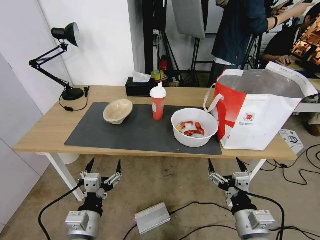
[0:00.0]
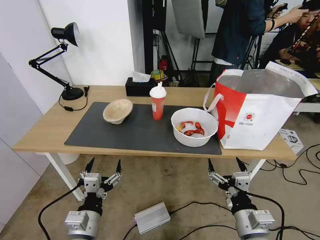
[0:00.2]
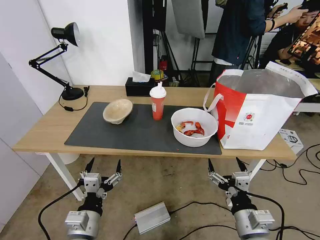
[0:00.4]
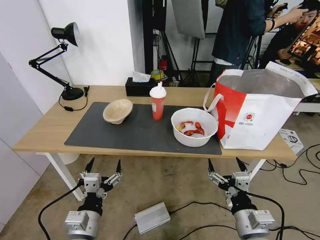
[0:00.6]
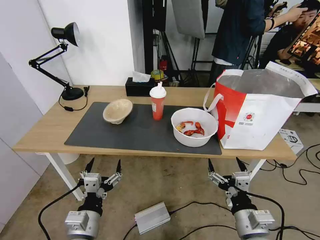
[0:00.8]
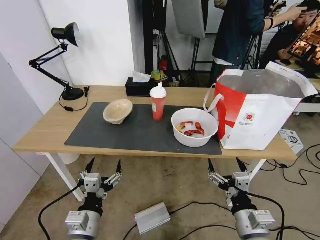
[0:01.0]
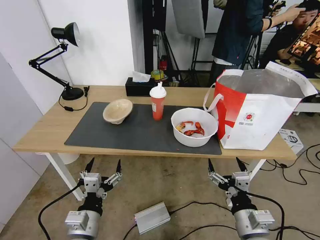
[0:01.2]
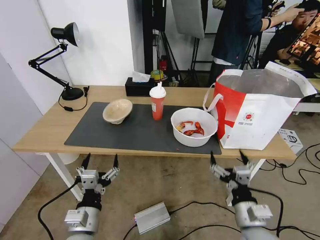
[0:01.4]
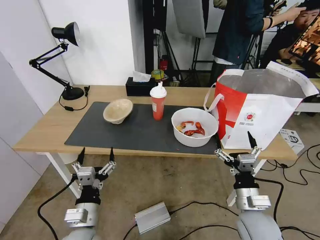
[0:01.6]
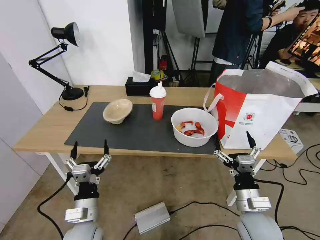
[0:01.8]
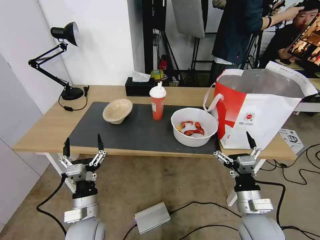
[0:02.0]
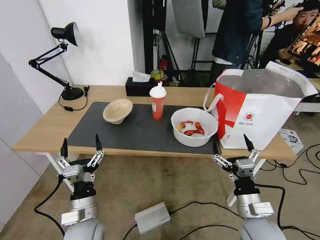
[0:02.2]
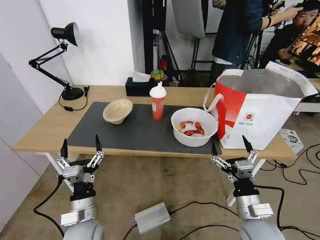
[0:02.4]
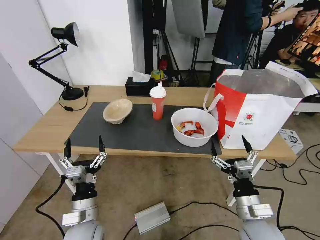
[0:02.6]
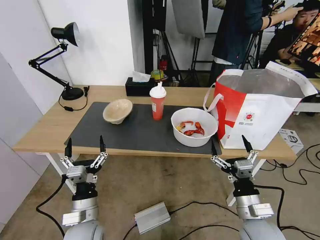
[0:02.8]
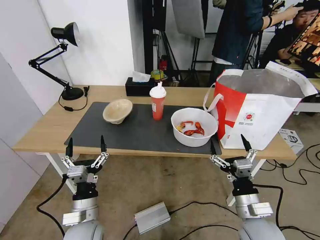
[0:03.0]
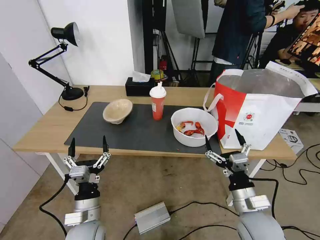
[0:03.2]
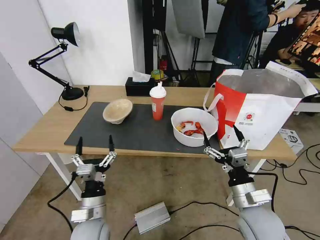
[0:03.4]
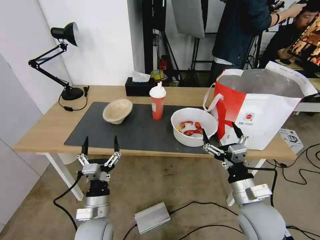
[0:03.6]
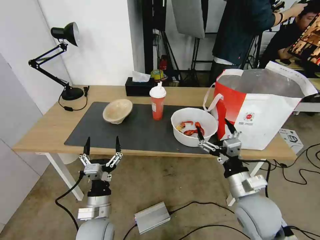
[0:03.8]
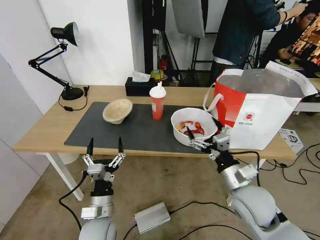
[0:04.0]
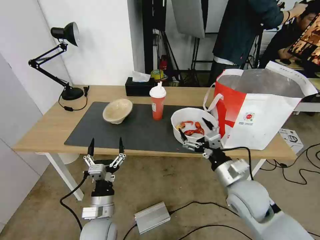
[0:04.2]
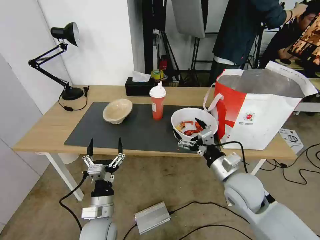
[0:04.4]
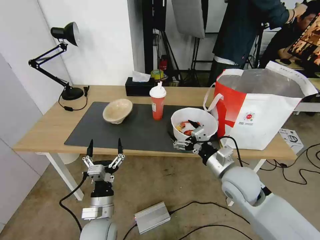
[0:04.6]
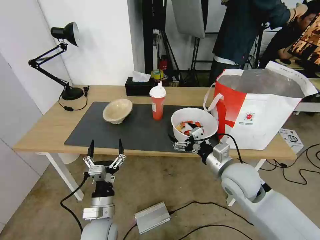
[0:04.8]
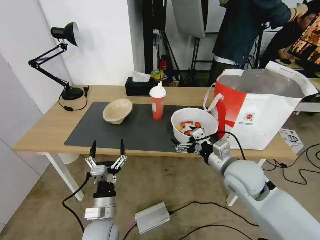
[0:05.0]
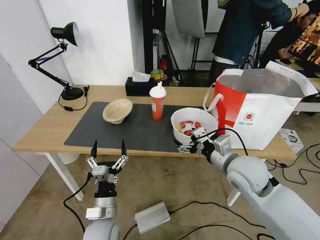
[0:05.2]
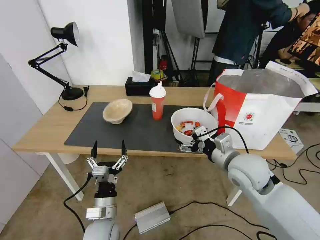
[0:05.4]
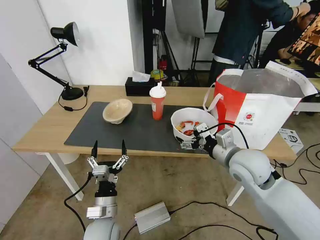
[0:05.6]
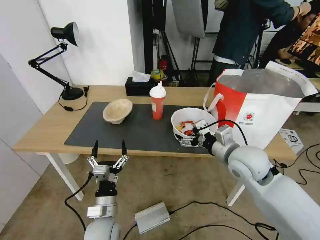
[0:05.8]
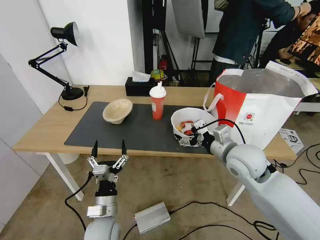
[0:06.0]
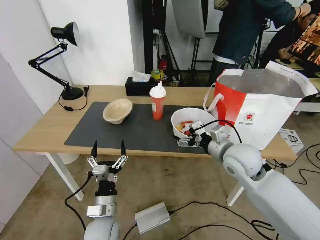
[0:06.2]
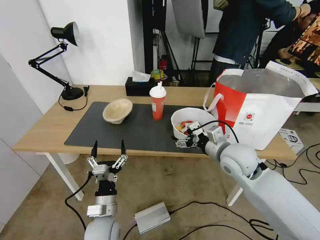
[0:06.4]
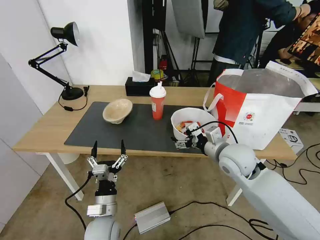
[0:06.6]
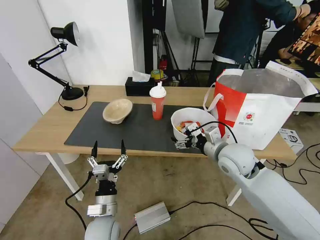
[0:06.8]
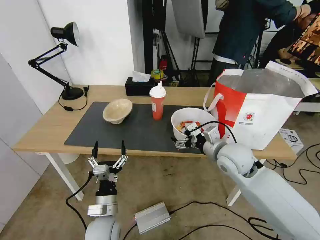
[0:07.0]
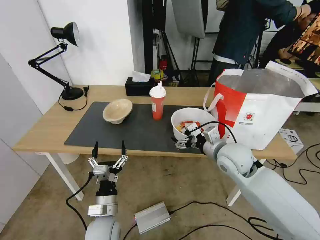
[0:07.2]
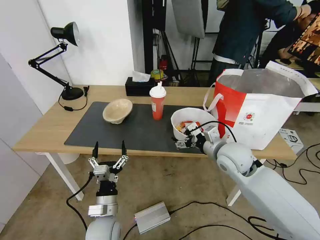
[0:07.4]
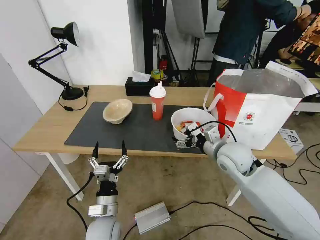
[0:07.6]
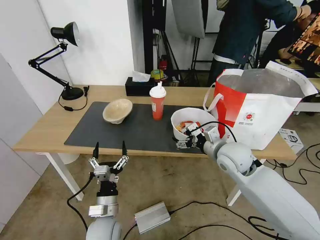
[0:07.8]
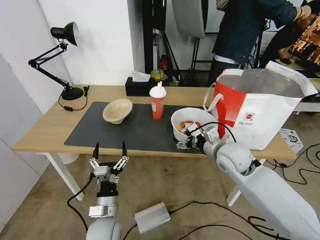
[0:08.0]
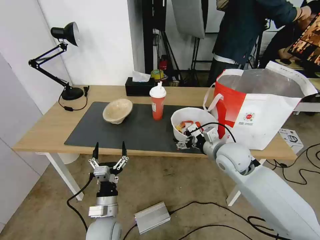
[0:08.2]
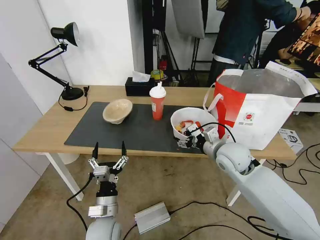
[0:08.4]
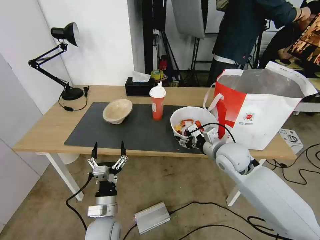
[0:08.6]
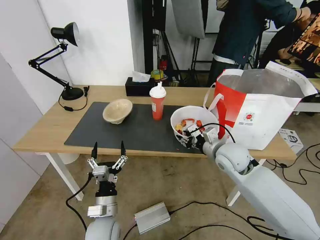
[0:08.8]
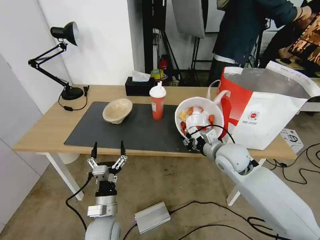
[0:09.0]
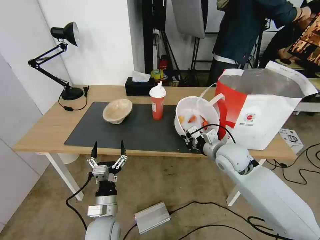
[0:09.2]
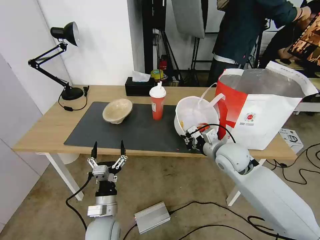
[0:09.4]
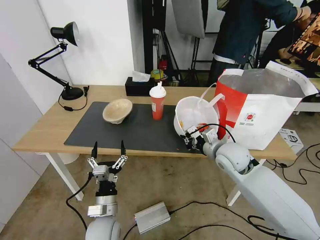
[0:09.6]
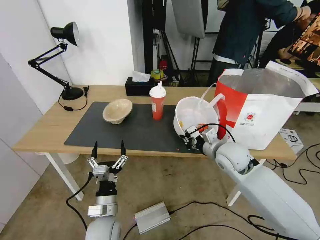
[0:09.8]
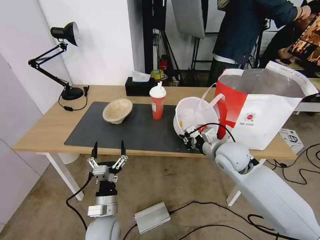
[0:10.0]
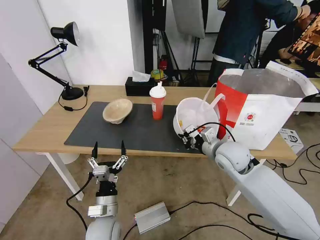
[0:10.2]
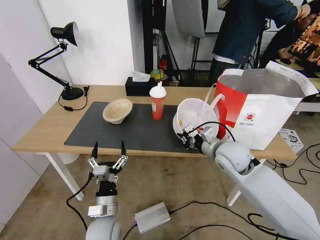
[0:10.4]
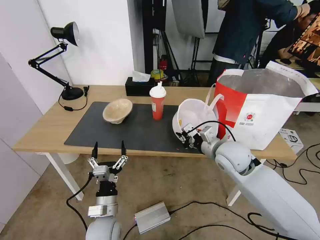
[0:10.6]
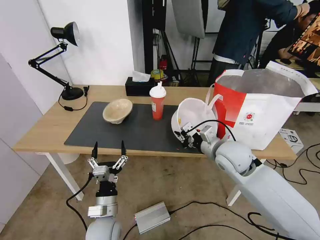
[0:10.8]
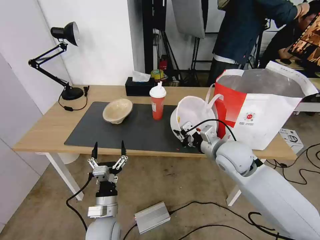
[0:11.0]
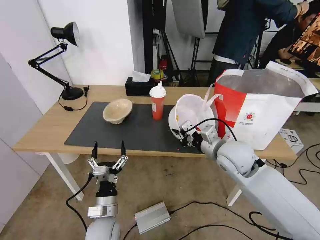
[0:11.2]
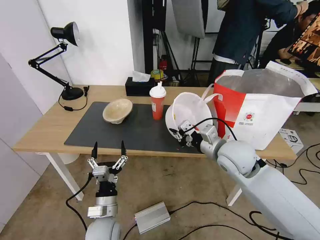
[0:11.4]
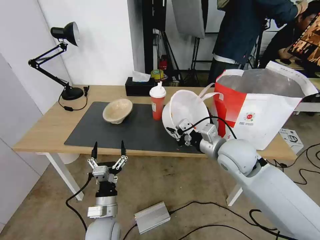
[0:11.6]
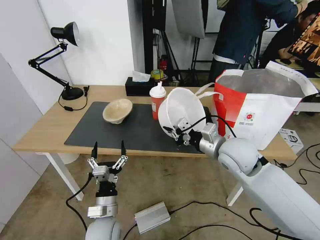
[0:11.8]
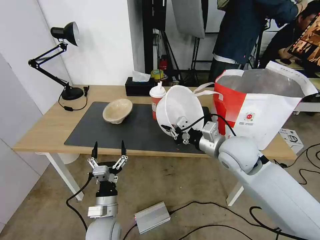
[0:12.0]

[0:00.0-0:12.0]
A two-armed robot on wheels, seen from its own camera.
Task of the whole recording: Pick up the trash from the table and place it into the takeout bag.
0:01.6 to 0:03.0: The grippers move only a little.
0:03.0 to 0:04.4: The right gripper shifts about 10 cm forward and upward.
0:04.4 to 0:06.0: The right gripper travels upward and forward by some 10 cm.
0:06.0 to 0:07.6: The grippers move only a little.
0:07.6 to 0:09.0: The right gripper closes.
0:09.0 to 0:10.4: The grippers stay close to where they were, moving slightly.
0:10.4 to 0:12.0: The right gripper ends up approximately 5 cm from where it was.

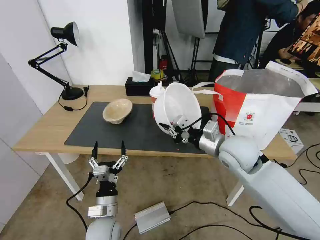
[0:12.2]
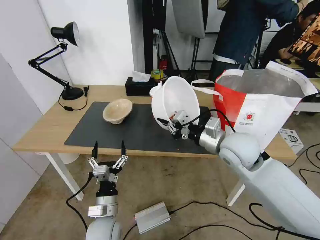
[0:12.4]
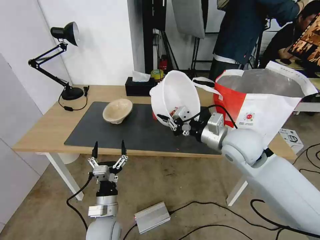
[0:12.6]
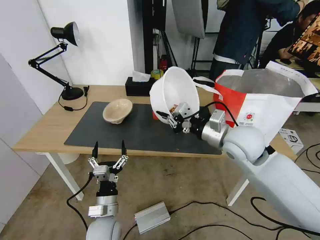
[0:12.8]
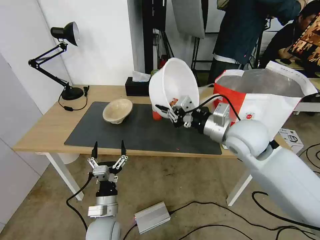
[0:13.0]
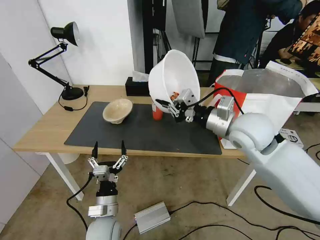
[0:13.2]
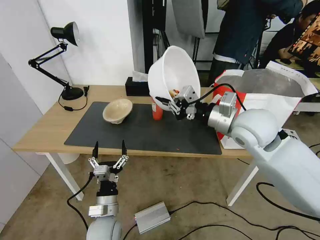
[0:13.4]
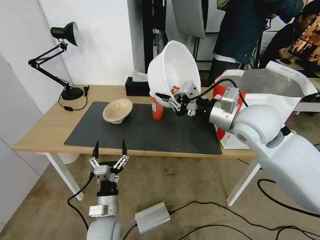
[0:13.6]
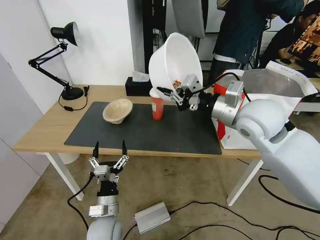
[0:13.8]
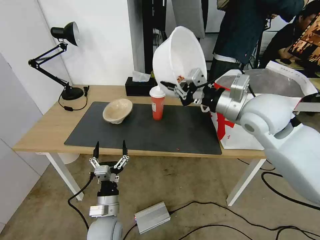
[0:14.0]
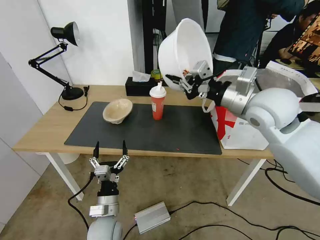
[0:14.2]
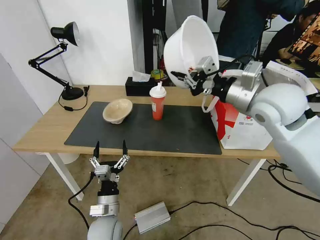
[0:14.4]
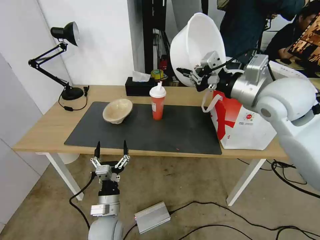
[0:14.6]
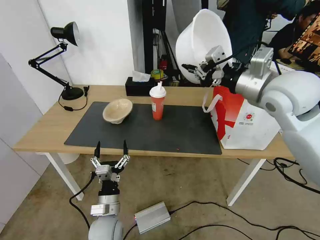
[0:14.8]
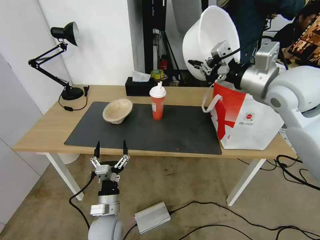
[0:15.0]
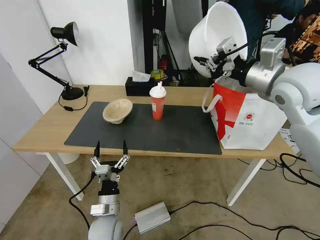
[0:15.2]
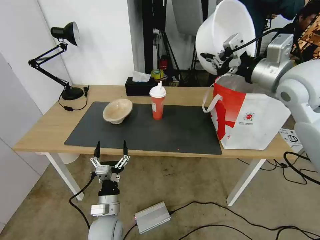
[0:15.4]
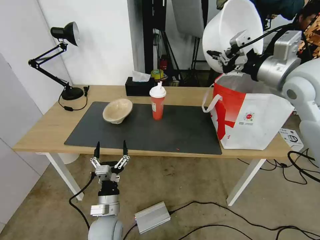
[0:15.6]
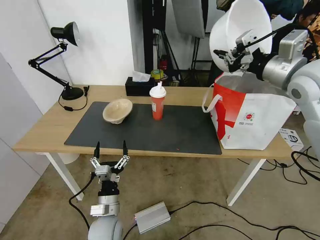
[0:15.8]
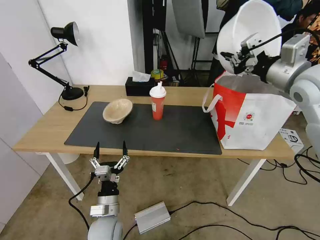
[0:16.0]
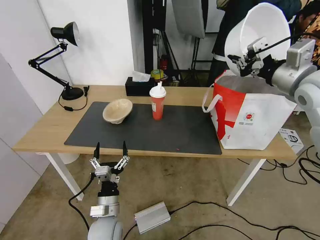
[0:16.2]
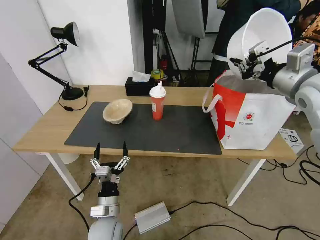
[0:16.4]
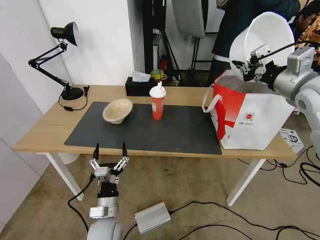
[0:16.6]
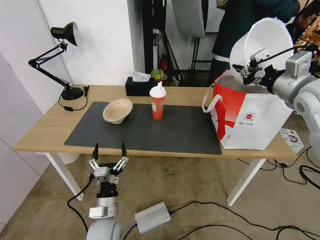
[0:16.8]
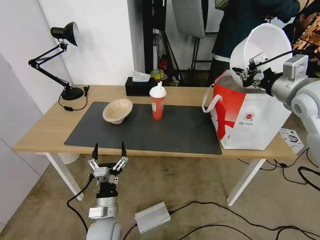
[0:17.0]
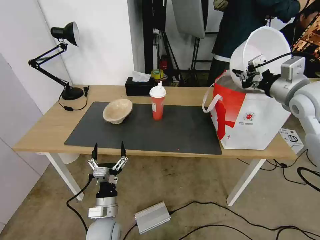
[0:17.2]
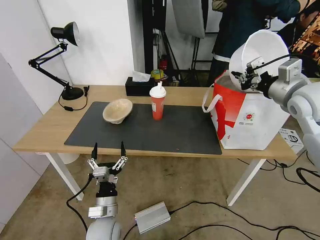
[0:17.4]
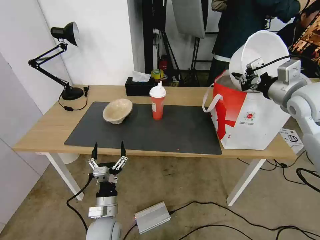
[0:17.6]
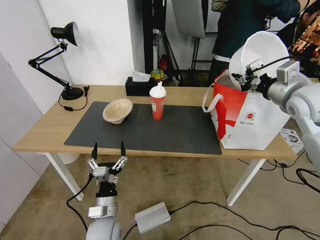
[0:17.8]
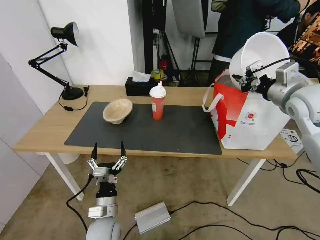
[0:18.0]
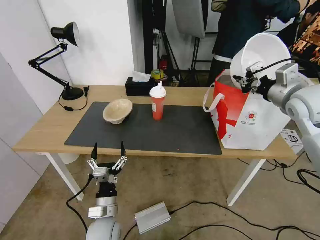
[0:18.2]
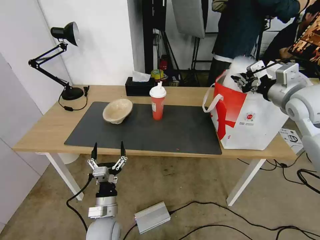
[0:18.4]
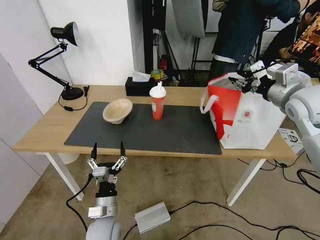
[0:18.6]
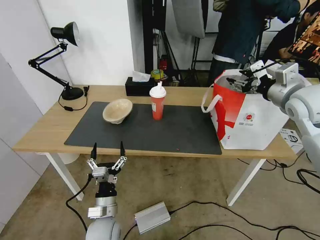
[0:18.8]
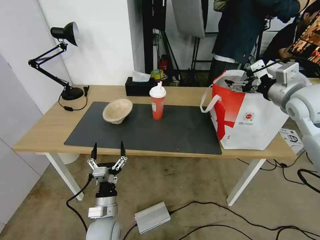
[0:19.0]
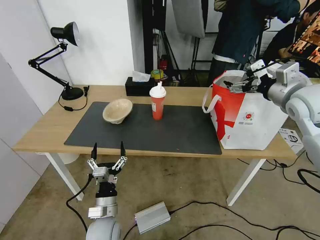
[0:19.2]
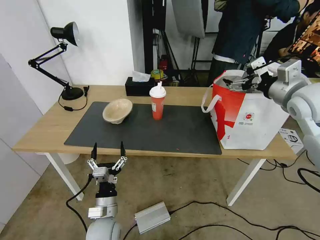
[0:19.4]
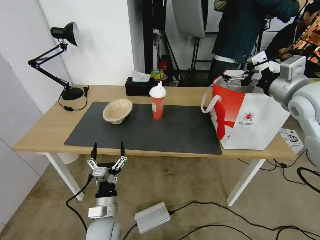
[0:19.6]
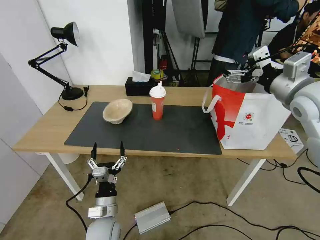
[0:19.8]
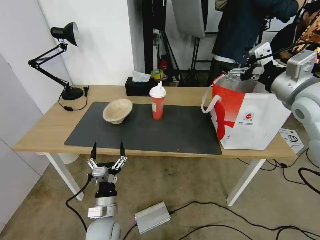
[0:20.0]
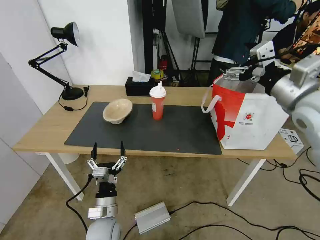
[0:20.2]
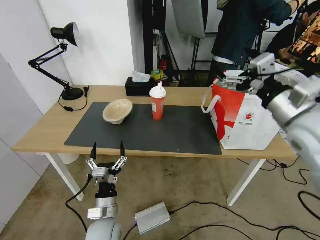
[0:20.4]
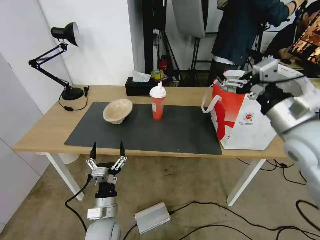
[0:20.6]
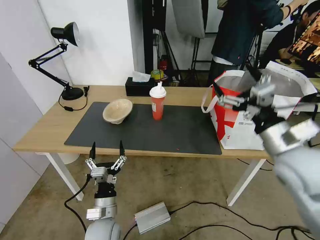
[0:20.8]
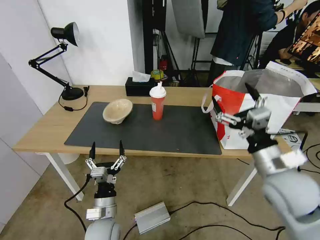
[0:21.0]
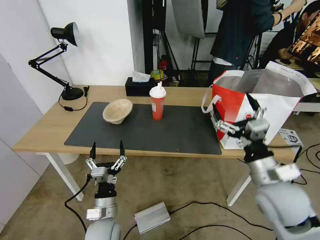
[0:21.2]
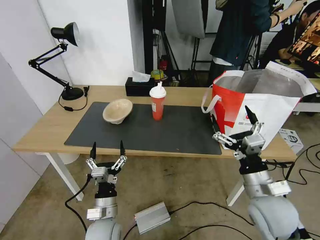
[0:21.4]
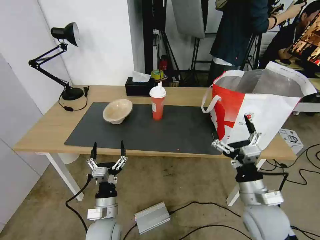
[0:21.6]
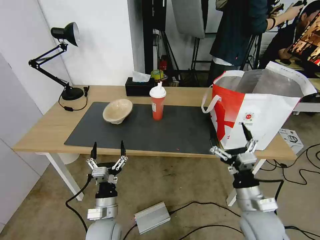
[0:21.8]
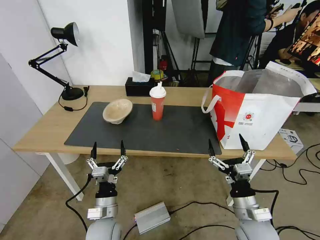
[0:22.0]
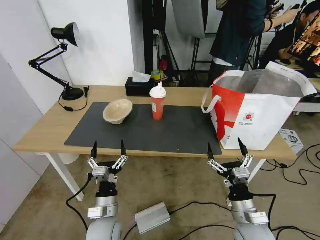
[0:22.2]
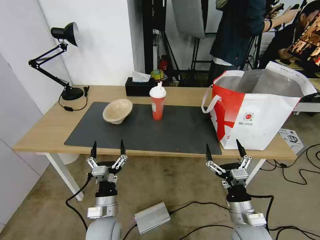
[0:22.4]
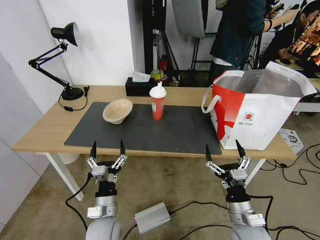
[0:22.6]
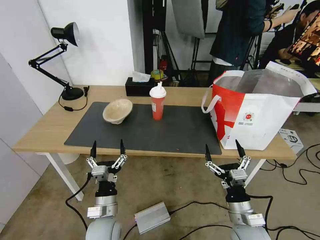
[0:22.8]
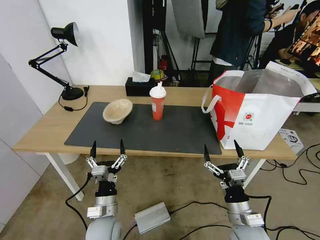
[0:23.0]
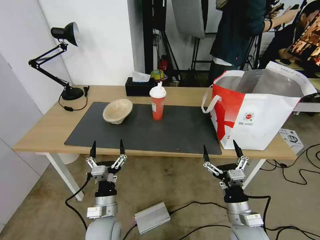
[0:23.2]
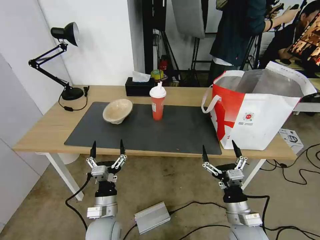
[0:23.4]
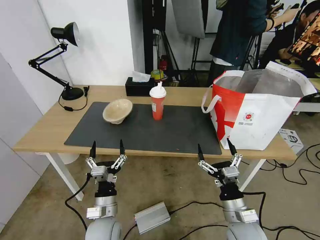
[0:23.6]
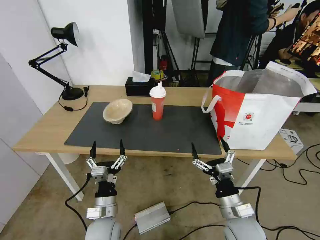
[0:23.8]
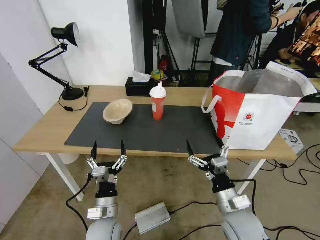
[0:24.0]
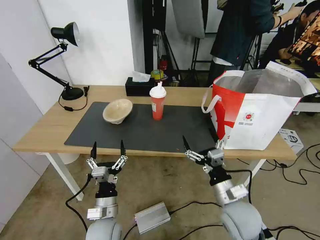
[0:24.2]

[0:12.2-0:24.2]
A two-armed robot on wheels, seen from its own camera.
Task of the whole recording: Pick up the trash from the table and place it into the takeout bag.
0:12.2 to 0:13.8: The right gripper is displaced upward by some 10 cm.
0:13.8 to 0:15.2: The right gripper travels upward and to the right by some 10 cm.
0:15.2 to 0:16.6: The right gripper shifts some 5 cm to the right.
0:16.6 to 0:18.2: The grippers stay close to where they were, moving slightly.
0:18.2 to 0:19.8: The right gripper changes place by roughly 5 cm, and opens up.
0:19.8 to 0:21.2: The right gripper goes roughly 25 cm downward and backward.
0:21.2 to 0:22.6: The right gripper heads downward, covering approximately 15 cm.
0:22.6 to 0:24.2: The right gripper changes place by about 5 cm.
